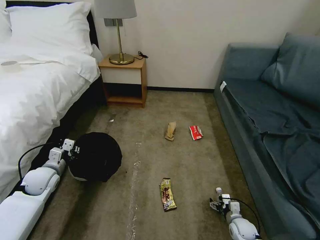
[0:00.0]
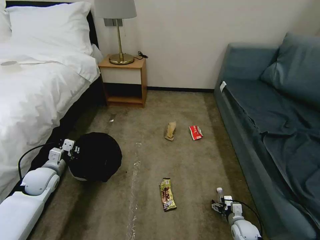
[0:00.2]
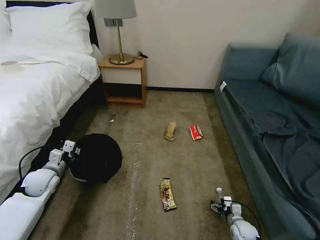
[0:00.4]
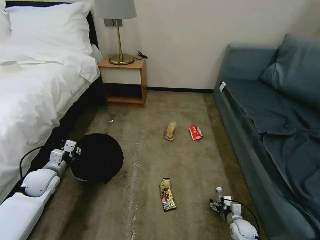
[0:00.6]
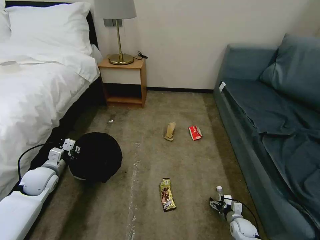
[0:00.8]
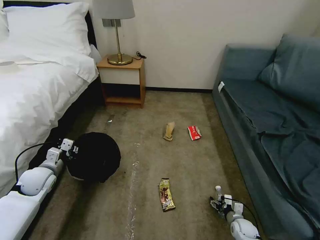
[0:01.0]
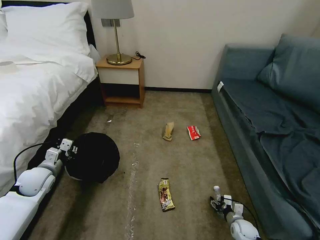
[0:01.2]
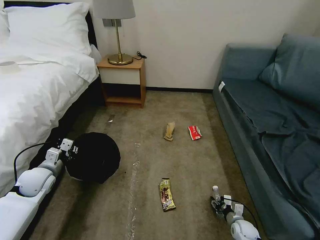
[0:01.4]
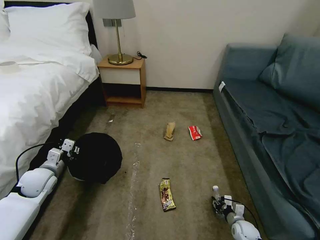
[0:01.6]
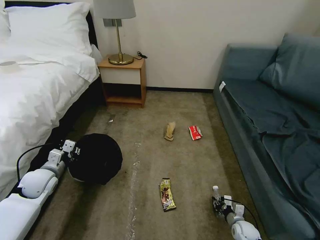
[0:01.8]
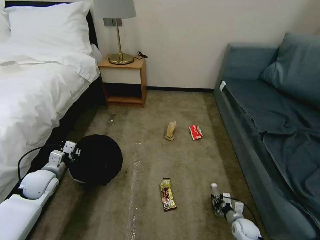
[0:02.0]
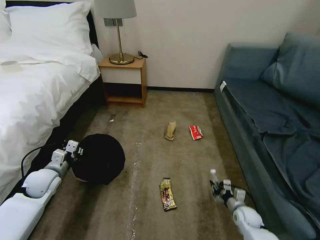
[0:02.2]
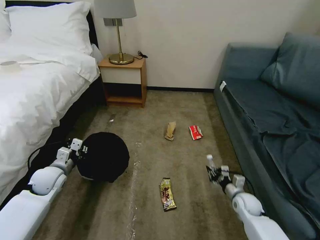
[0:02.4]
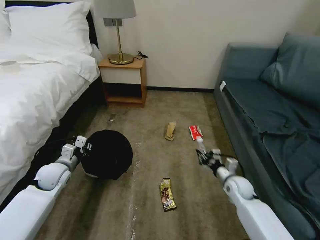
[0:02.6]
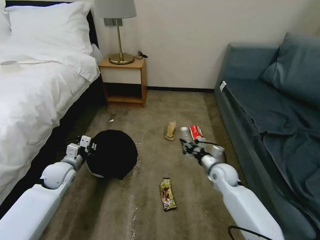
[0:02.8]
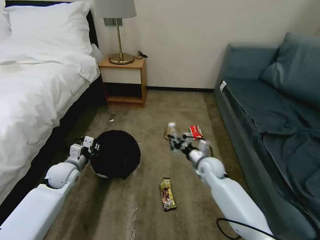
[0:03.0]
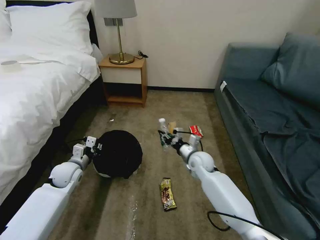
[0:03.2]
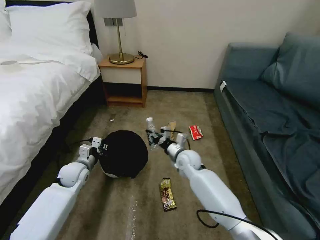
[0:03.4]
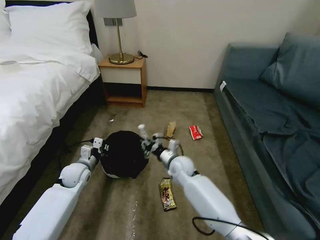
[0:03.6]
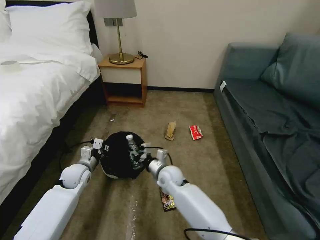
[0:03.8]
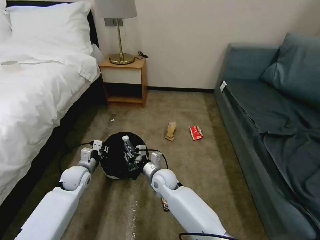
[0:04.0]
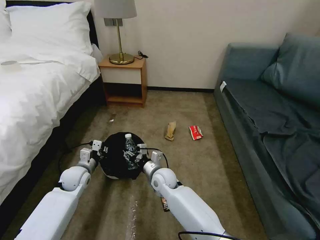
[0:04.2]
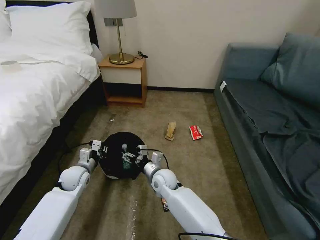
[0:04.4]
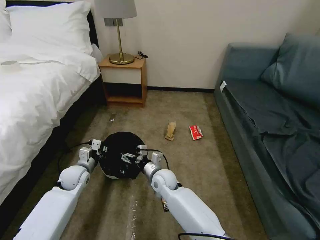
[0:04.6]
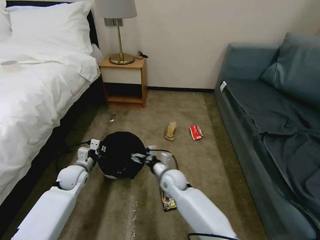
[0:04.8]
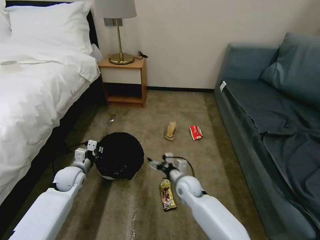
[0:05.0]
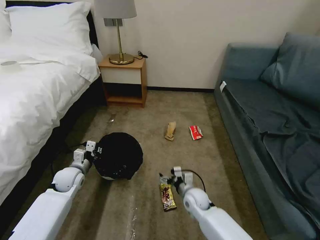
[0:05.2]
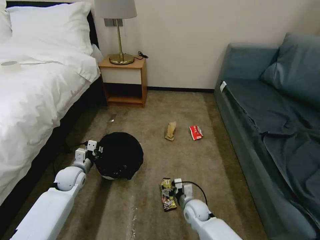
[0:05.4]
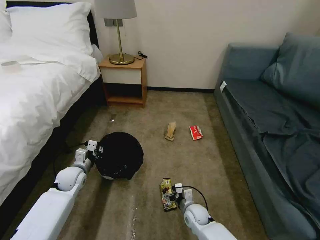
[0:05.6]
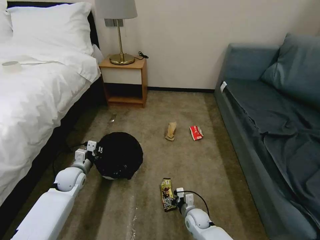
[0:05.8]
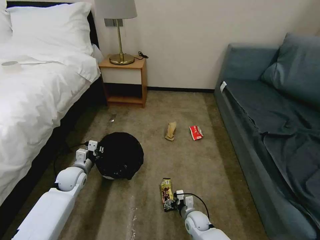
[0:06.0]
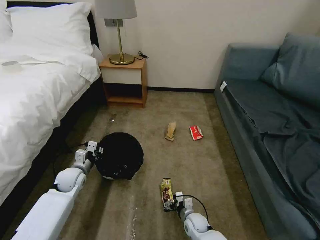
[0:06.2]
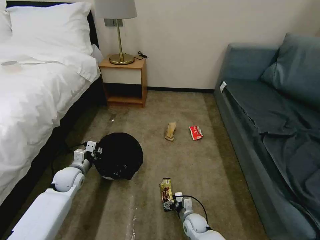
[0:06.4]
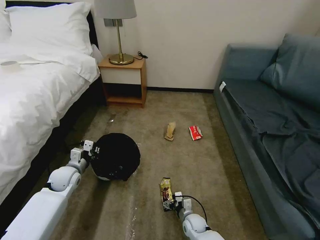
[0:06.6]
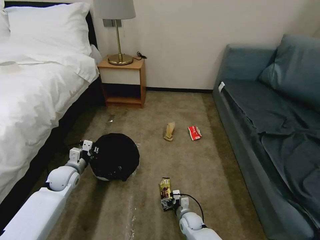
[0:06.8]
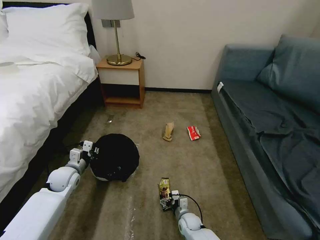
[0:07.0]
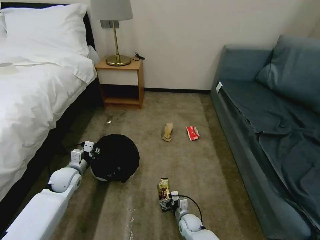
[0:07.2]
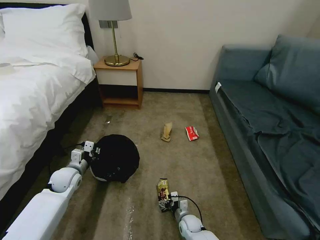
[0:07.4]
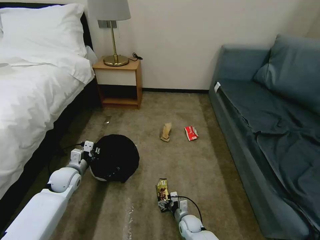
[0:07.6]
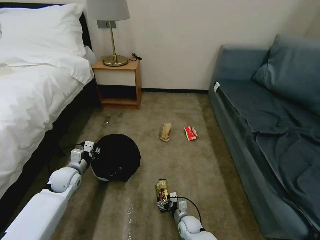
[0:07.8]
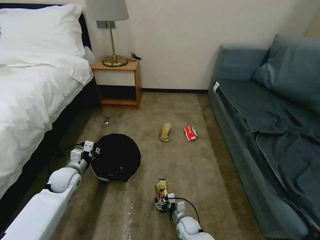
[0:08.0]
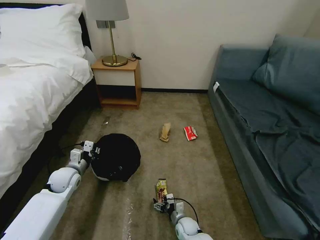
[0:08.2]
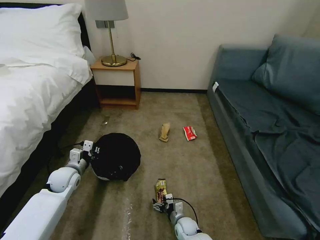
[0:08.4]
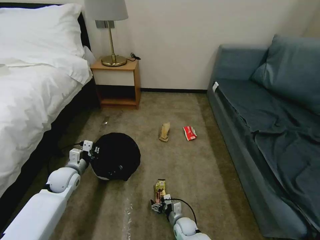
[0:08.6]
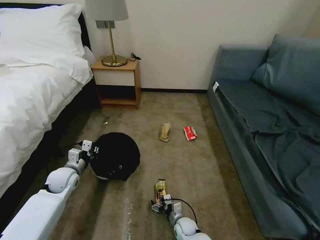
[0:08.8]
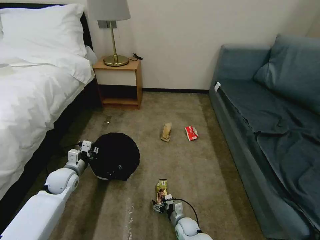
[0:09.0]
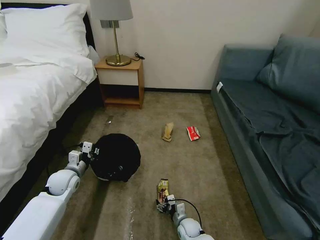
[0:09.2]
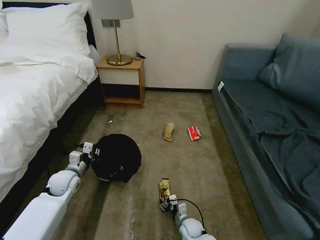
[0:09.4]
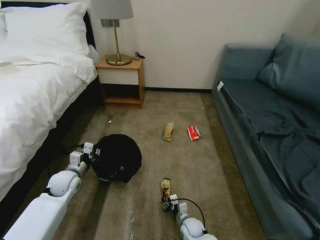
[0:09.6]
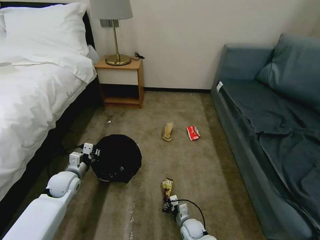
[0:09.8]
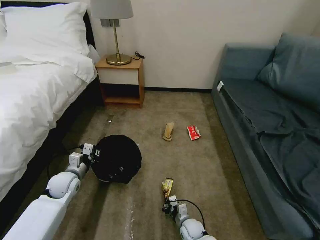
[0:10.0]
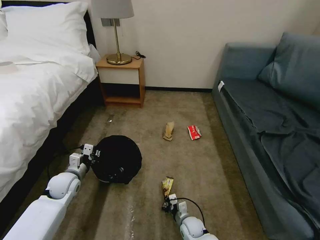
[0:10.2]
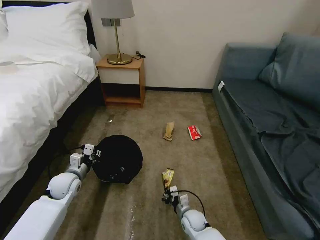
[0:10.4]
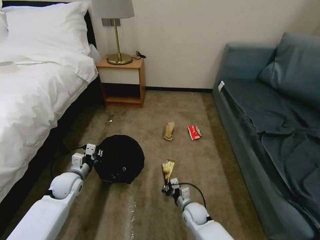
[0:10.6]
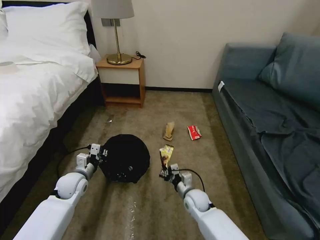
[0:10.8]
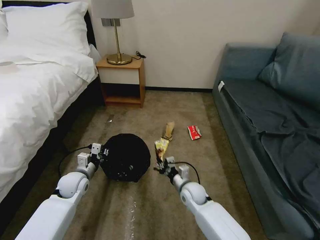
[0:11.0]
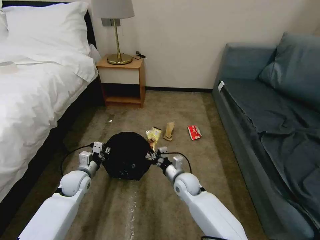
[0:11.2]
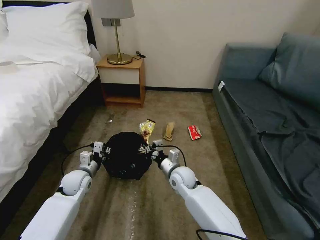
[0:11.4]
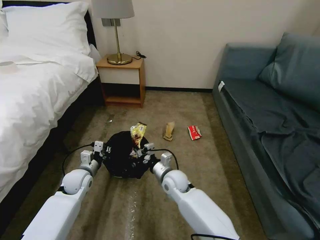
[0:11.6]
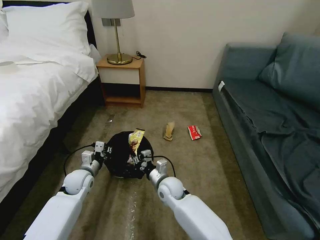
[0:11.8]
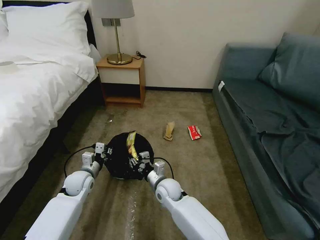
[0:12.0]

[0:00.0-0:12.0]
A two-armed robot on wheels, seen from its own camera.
Task of the whole recording: Pick up the trash bin, then pick up the garbage on the floor and place it into the trash bin.
0:00.0 to 0:01.6: The right gripper closes its fingers.
0:01.6 to 0:03.0: The left gripper moves to the right, some 5 cm, while the right gripper heads upward, forward and to the left, covering about 30 cm.
0:03.0 to 0:04.4: The left gripper shifts by roughly 5 cm. The right gripper shifts some 25 cm to the left, and opens.
0:04.4 to 0:06.0: The right gripper is displaced downward, to the right and backward by approximately 25 cm.
0:06.0 to 0:07.6: The grippers move only a little.
0:07.6 to 0:09.0: There are only small adjustments of the grippers.
0:09.0 to 0:10.4: The right gripper closes its fingers.
0:10.4 to 0:12.0: The right gripper goes some 20 cm upward, to the left and forward.

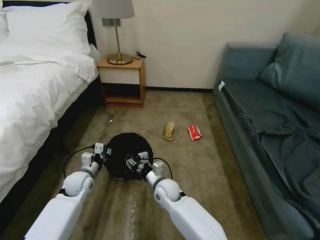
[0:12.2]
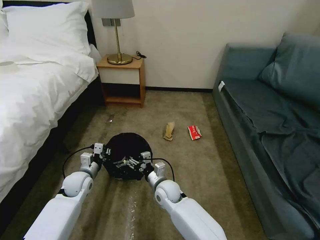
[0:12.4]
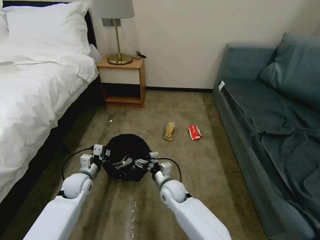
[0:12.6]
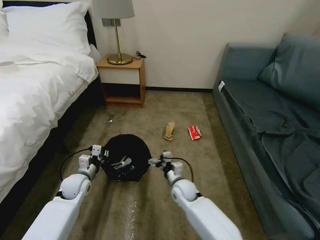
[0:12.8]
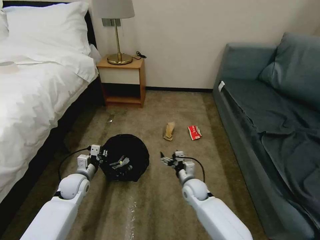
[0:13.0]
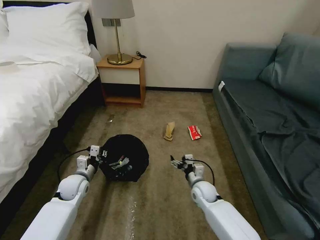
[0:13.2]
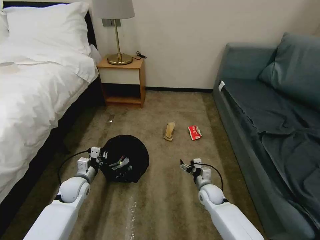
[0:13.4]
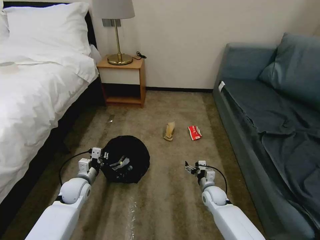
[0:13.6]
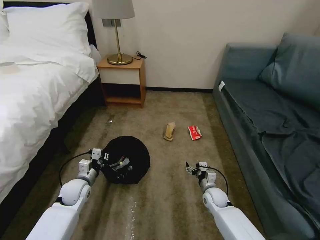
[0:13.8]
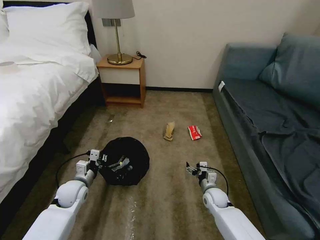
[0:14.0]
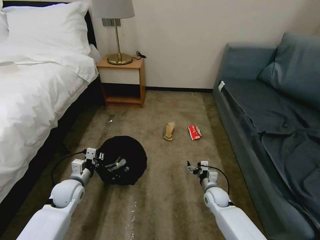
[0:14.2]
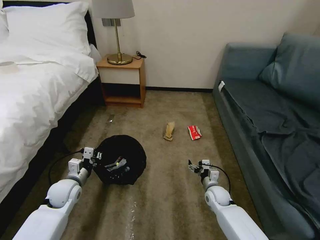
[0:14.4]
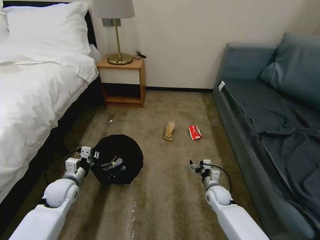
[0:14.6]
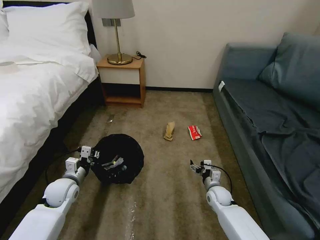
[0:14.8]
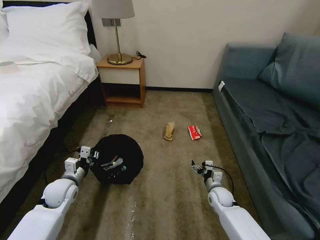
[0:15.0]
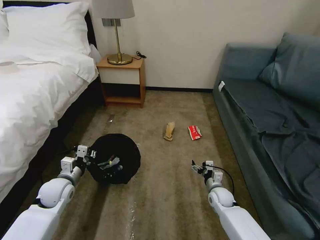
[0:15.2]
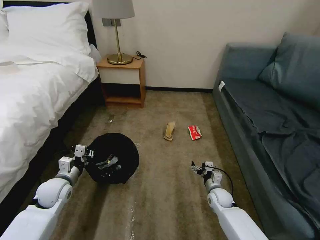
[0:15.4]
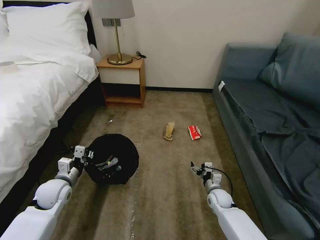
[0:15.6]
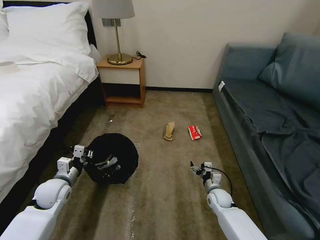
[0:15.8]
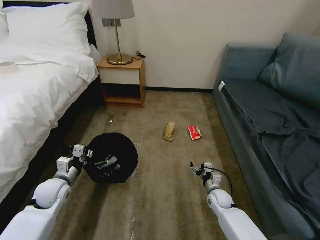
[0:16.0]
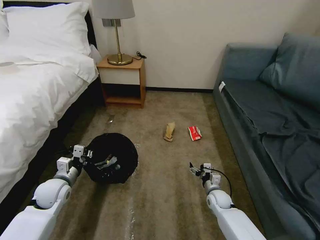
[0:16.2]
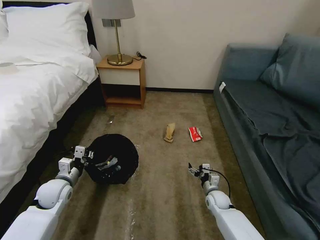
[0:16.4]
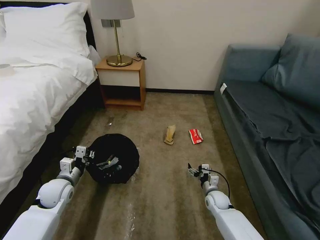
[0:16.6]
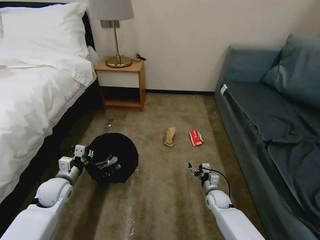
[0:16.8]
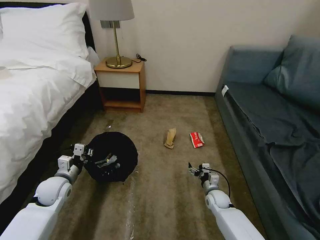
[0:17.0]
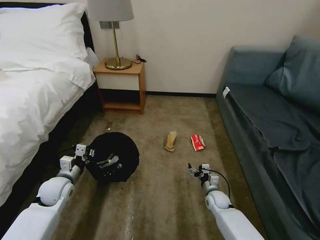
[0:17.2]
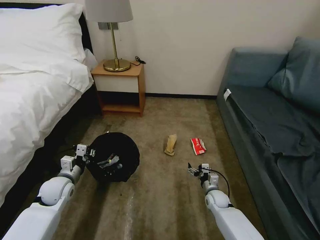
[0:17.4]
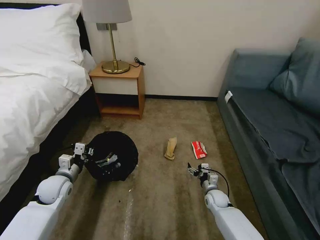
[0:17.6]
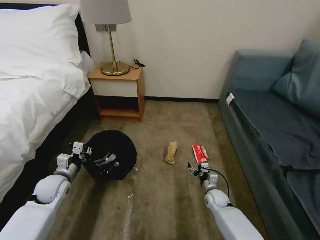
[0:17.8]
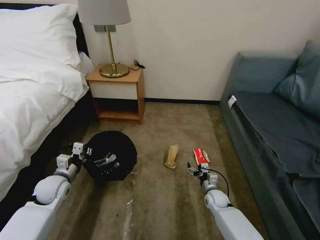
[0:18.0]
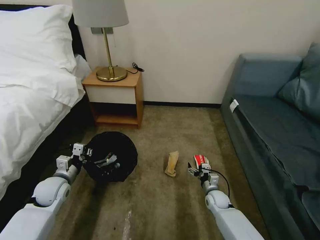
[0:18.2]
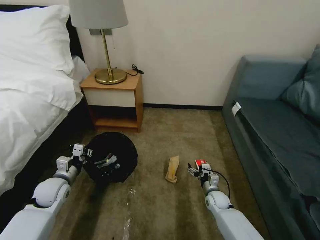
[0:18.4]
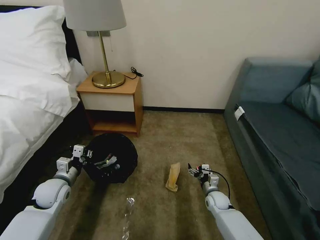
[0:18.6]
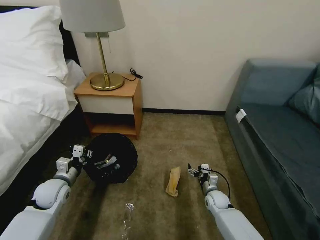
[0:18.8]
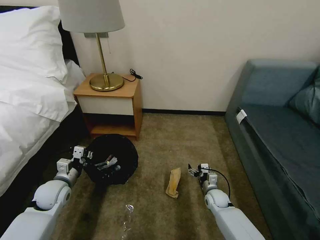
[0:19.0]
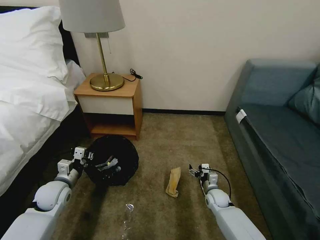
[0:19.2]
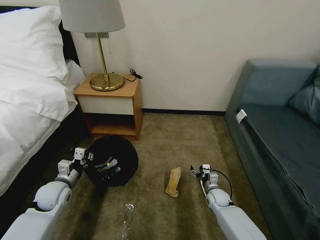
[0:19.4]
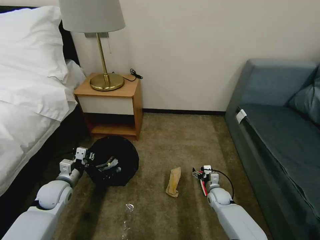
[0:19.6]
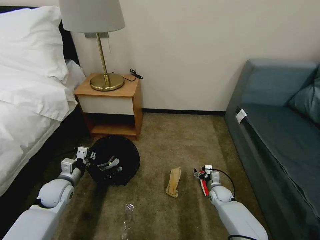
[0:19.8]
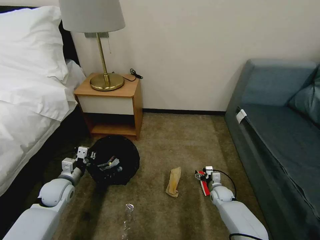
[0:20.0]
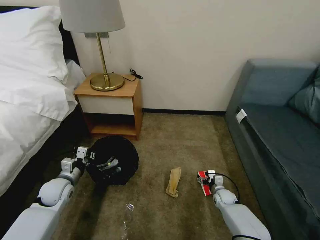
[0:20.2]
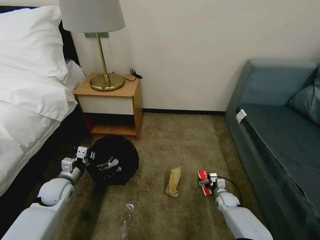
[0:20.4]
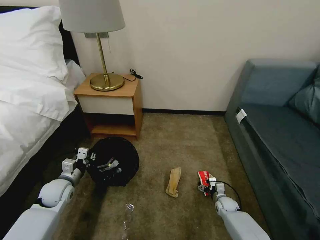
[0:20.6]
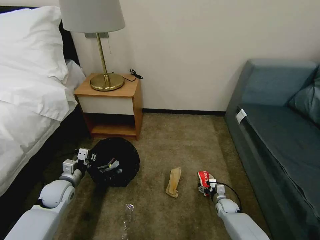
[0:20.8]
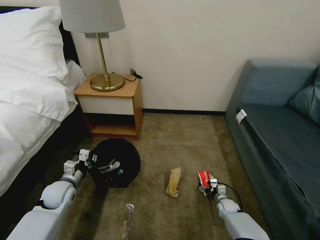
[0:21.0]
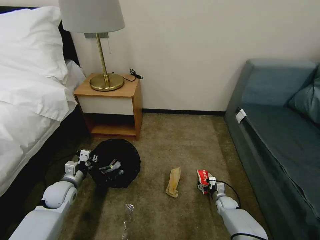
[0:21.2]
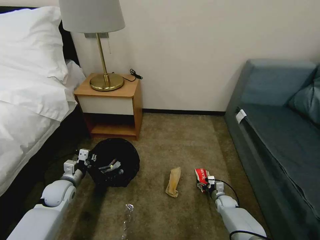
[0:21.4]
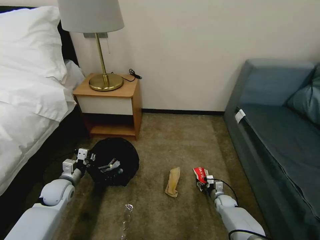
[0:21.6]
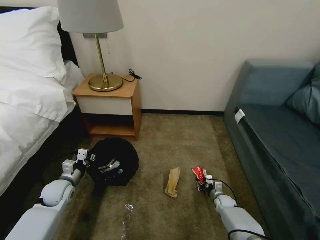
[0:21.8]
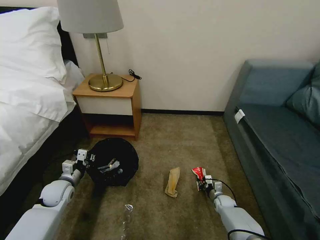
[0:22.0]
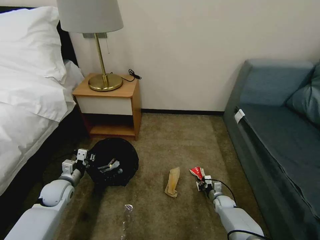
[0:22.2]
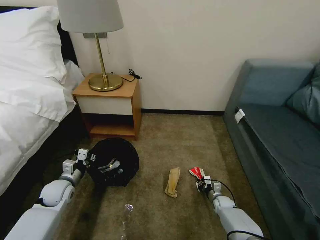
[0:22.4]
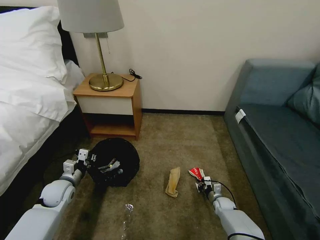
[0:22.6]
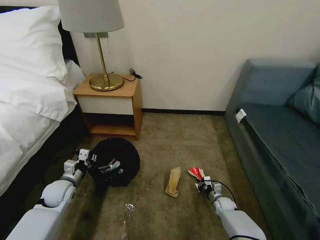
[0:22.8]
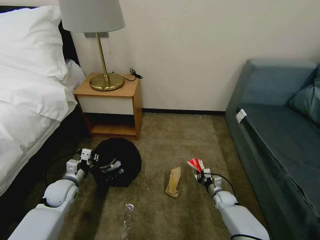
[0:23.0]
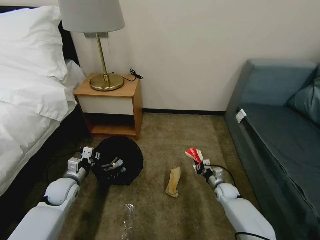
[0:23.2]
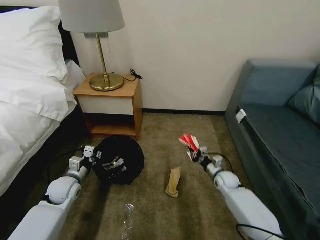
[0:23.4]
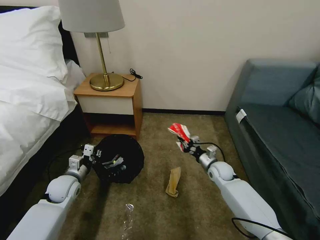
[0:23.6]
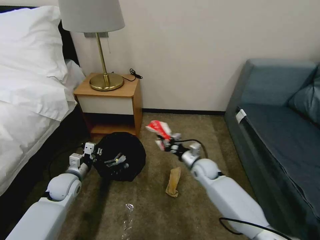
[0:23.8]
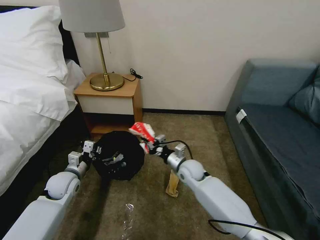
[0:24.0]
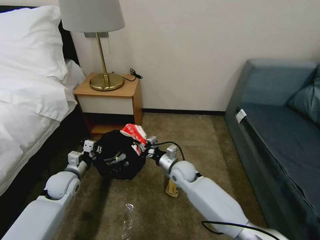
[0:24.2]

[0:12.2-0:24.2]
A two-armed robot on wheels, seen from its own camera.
Task of the whole recording: Pick up the trash bin, then pick up the garbage on the floor and place it into the trash bin.
0:12.2 to 0:13.8: The right gripper heads to the right and downward, covering about 25 cm, and opens its fingers.
0:13.8 to 0:15.2: The left gripper ends up approximately 5 cm from where it was.
0:15.2 to 0:16.6: There are only small adjustments of the grippers.
0:19.8 to 0:21.2: The right gripper moves downward, about 5 cm.
0:21.2 to 0:22.6: The right gripper closes.
0:22.6 to 0:24.2: The right gripper moves upward and to the left, about 35 cm.
